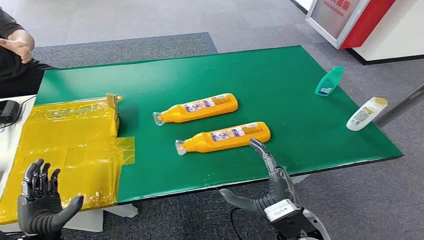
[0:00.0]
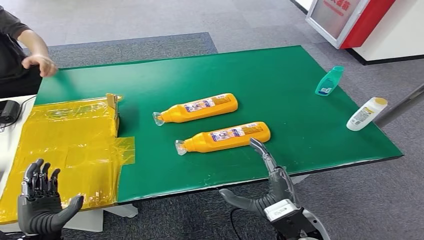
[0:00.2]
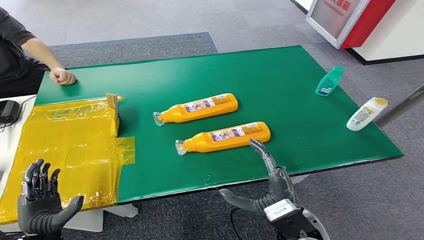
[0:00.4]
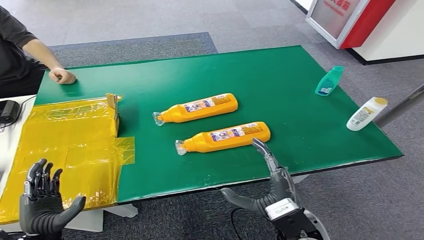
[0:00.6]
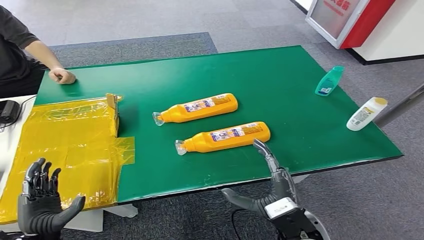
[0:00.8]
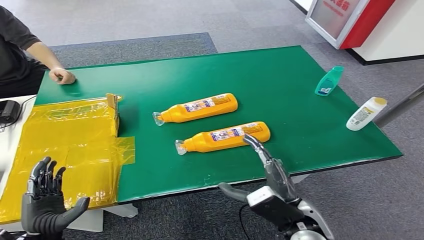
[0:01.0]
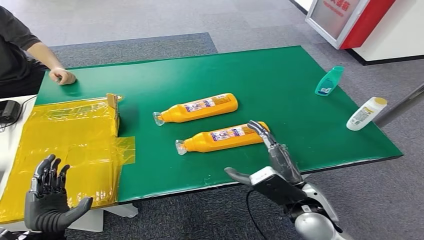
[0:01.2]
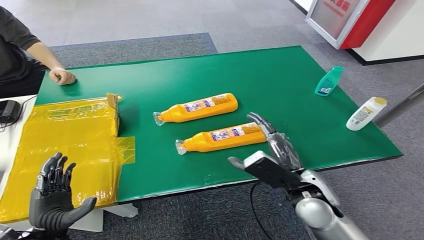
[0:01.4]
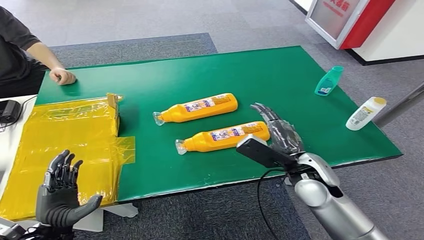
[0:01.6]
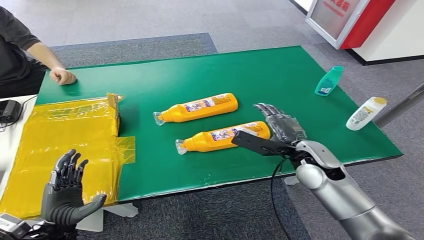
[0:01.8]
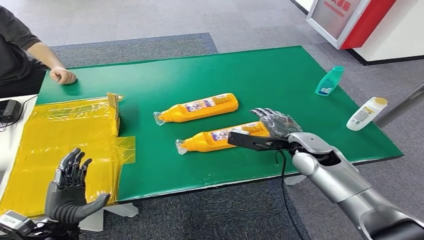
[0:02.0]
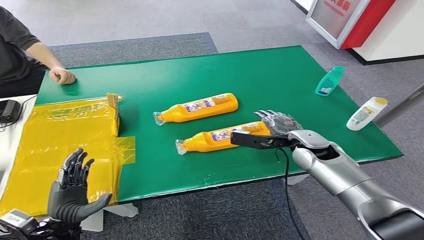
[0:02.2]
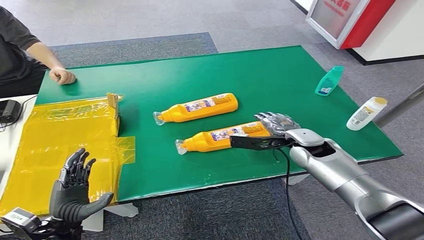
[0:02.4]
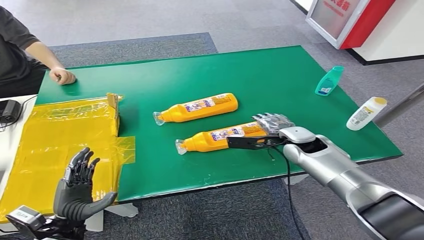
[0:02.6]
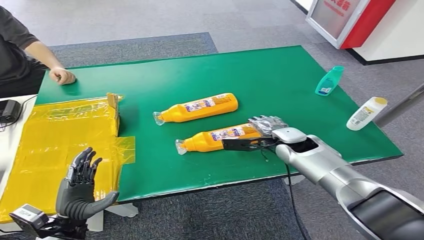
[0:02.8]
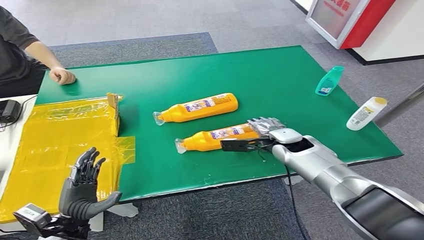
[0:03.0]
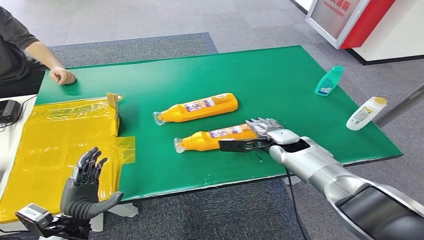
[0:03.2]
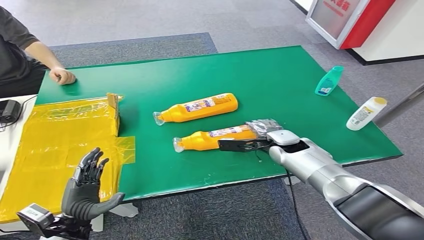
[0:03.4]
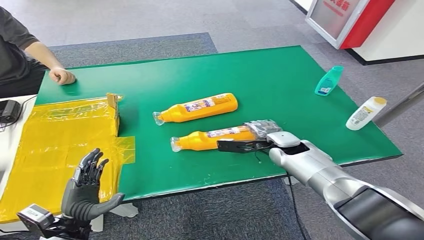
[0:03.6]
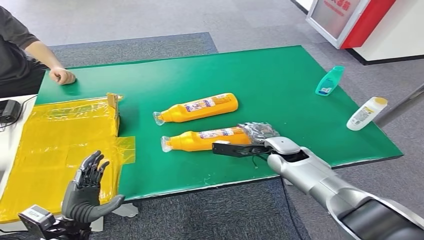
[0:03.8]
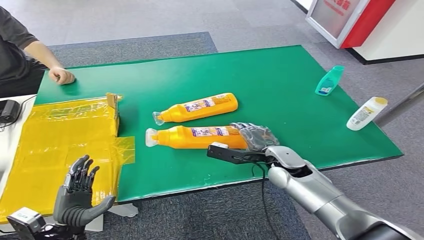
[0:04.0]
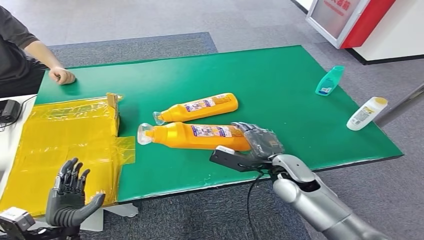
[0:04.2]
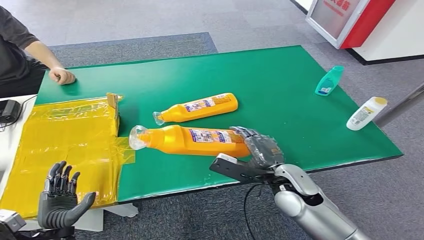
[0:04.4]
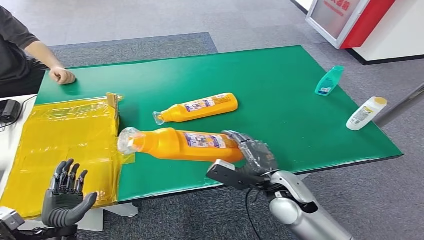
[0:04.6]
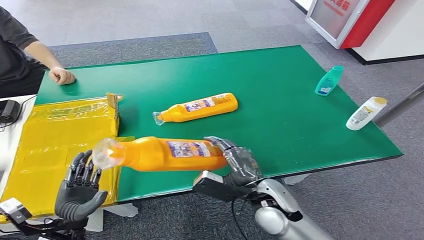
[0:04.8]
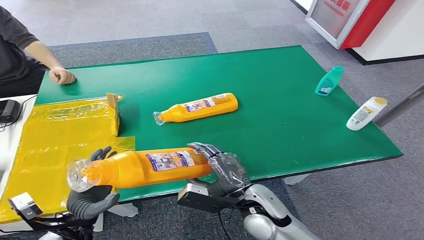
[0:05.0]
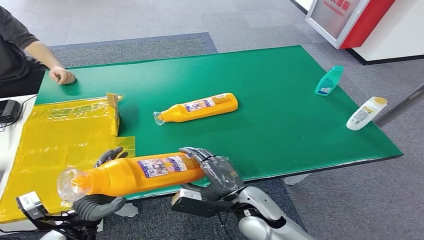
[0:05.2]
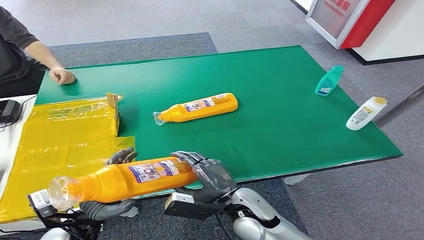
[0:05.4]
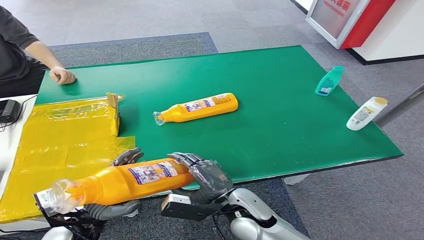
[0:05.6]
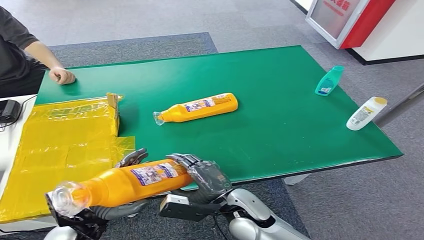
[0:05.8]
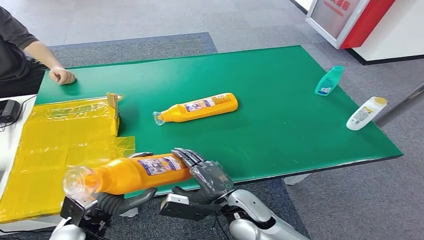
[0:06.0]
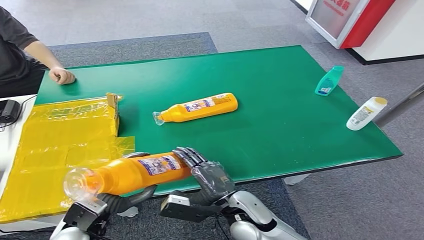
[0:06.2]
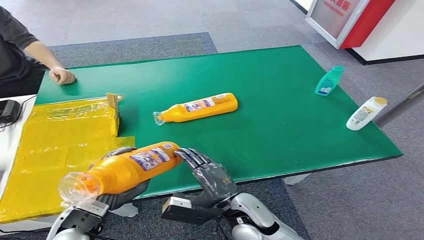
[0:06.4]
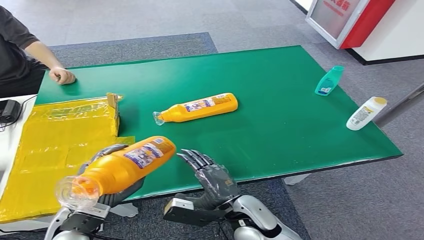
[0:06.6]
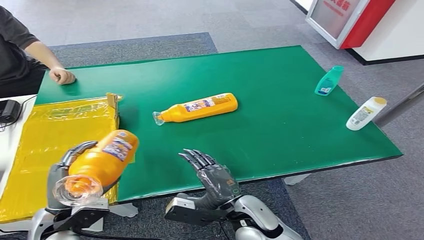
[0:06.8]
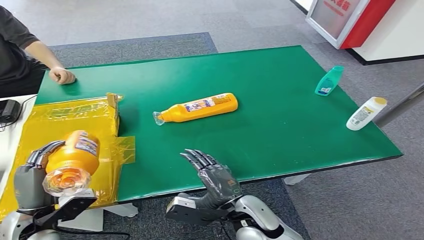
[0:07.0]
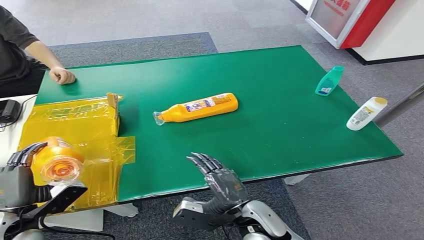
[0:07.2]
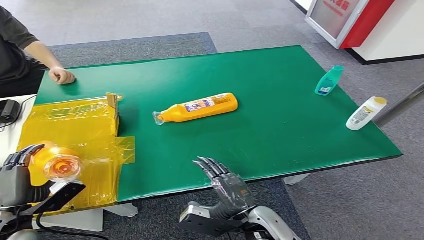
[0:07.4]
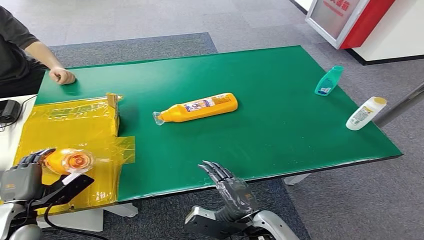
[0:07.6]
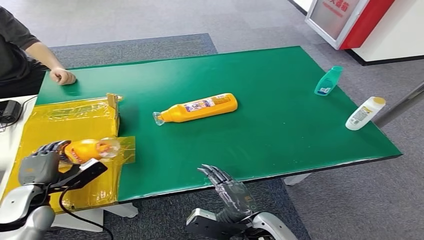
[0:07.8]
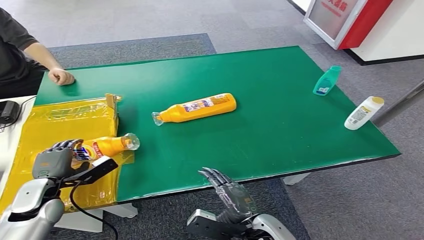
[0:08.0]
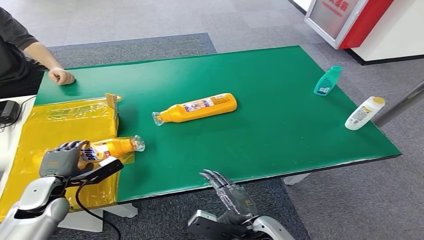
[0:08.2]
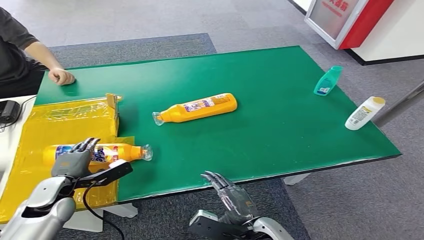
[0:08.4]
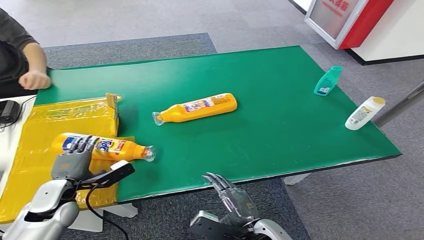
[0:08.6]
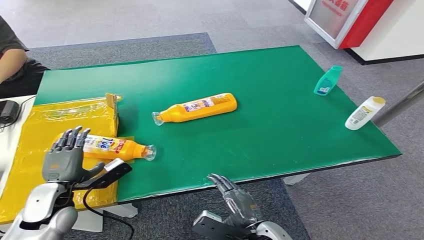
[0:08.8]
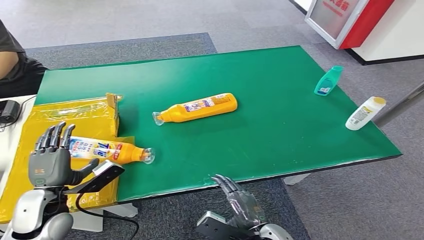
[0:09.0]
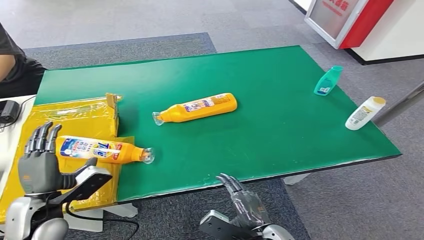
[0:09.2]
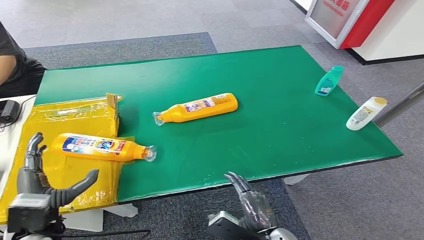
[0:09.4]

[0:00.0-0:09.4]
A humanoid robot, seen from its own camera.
Step, 0:00.0 to 0:04.4: Pick up the bottle from the table.
Step, 0:04.6 to 0:09.4: Turn the bottle to the front side.
0:03.2 to 0:04.8: The right hand moves backward and to the left, roughly 20 cm.
0:04.8 to 0:06.2: The left hand moves approximately 5 cm; the right hand heads to the left, covering approximately 5 cm.
0:06.2 to 0:07.8: The left hand shifts some 15 cm to the left and forward. The right hand heads backward, covering approximately 5 cm.
0:07.8 to 0:09.4: The left hand is displaced to the right and backward by approximately 10 cm.

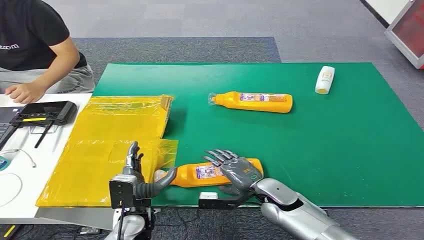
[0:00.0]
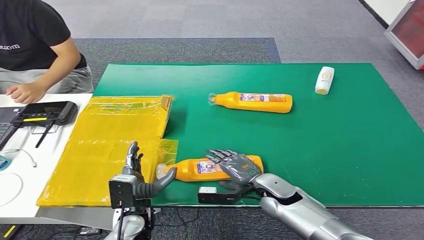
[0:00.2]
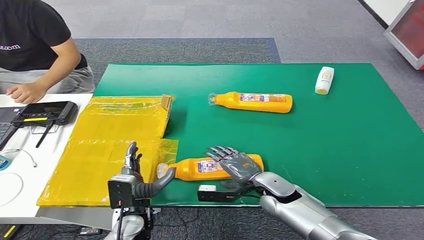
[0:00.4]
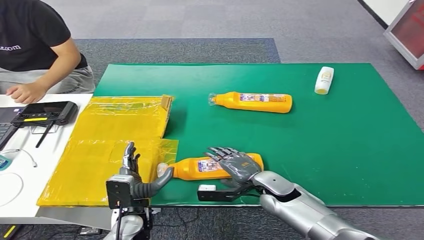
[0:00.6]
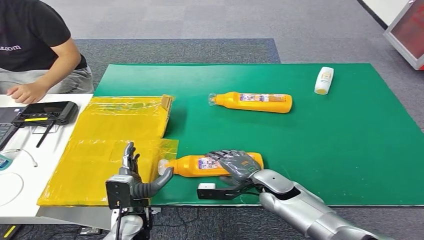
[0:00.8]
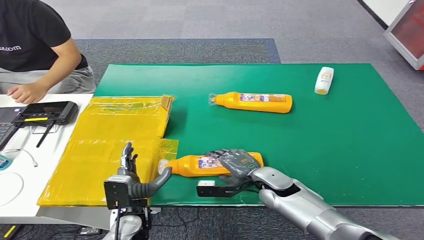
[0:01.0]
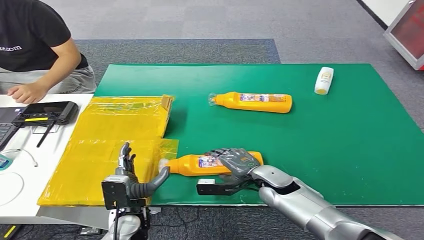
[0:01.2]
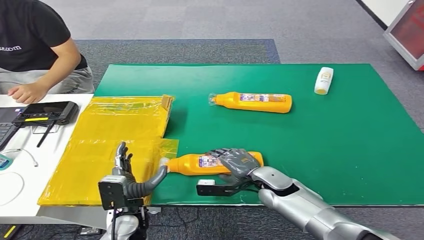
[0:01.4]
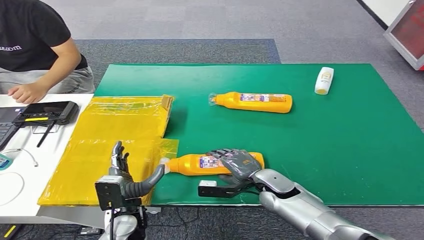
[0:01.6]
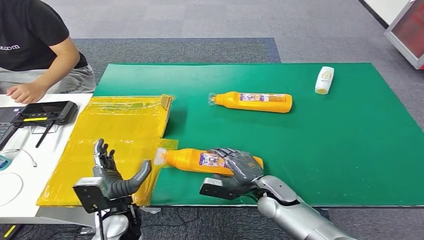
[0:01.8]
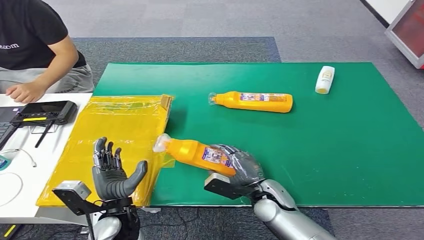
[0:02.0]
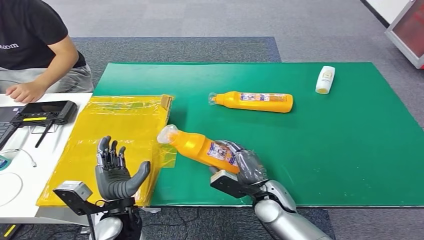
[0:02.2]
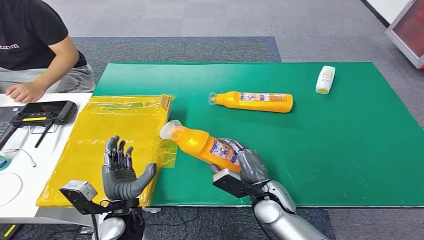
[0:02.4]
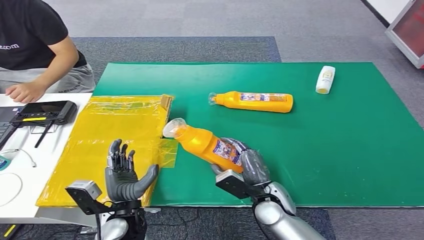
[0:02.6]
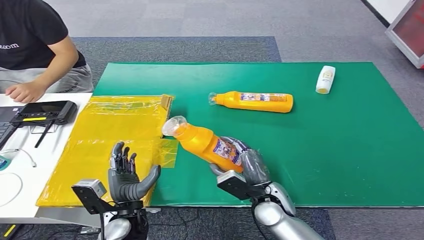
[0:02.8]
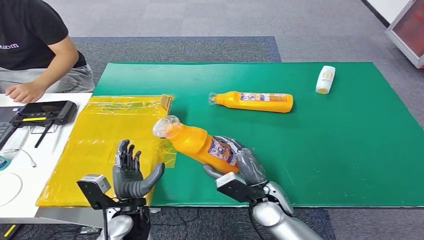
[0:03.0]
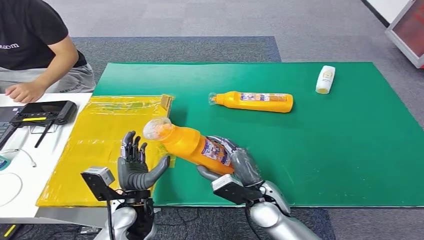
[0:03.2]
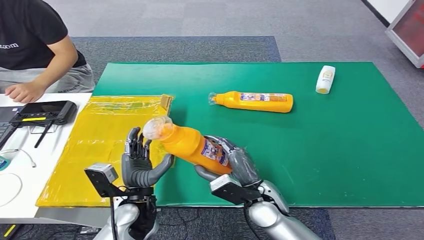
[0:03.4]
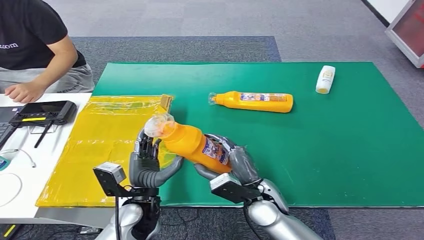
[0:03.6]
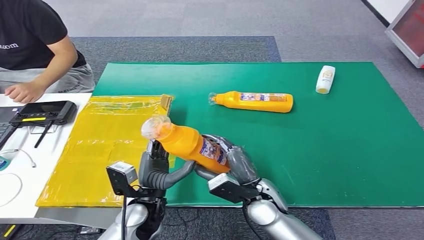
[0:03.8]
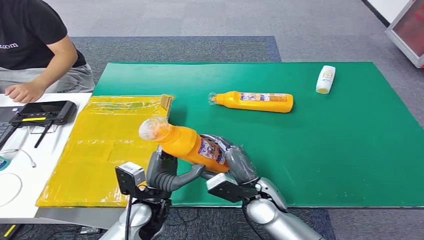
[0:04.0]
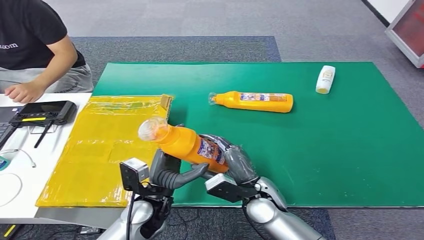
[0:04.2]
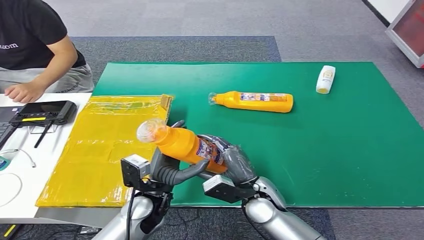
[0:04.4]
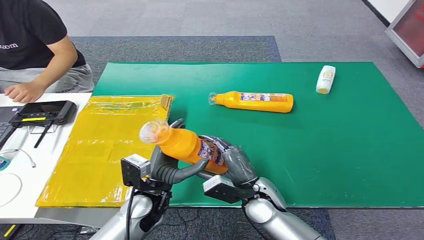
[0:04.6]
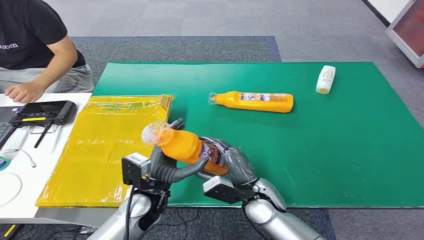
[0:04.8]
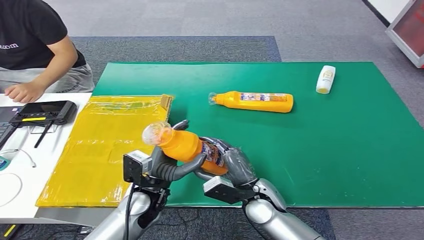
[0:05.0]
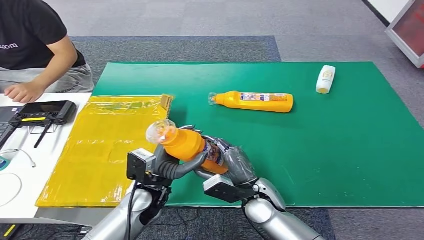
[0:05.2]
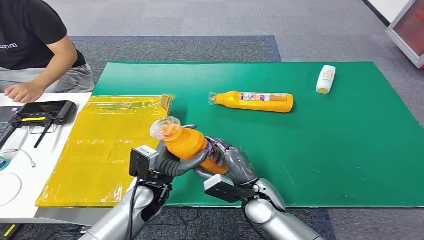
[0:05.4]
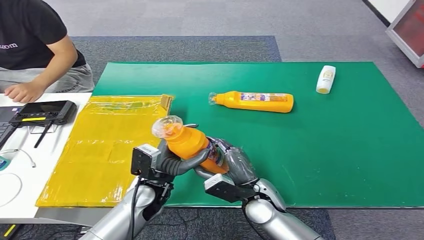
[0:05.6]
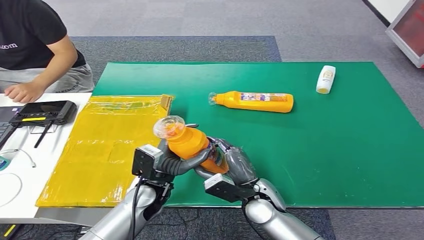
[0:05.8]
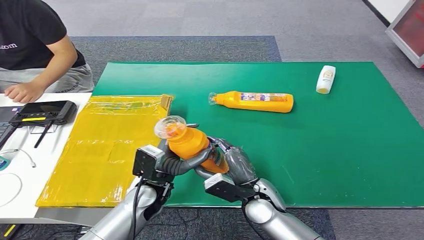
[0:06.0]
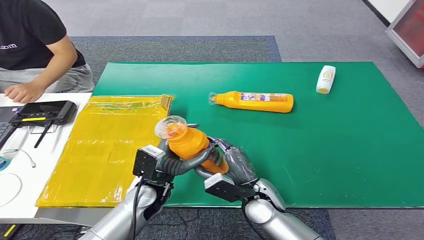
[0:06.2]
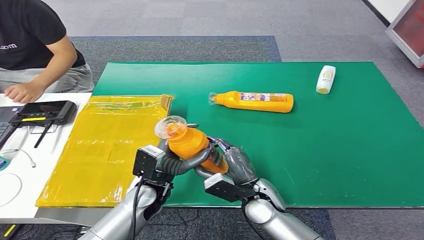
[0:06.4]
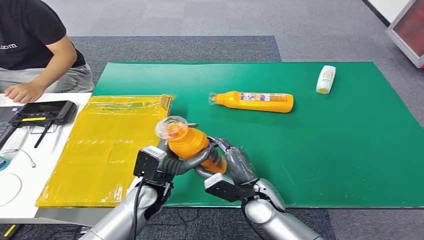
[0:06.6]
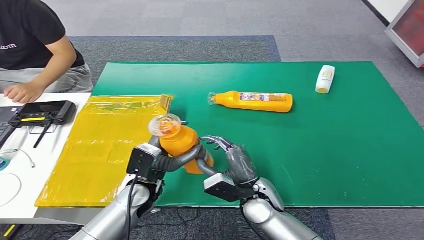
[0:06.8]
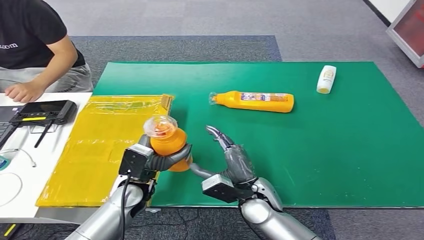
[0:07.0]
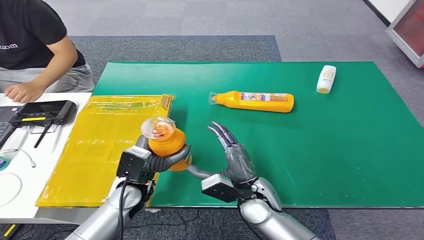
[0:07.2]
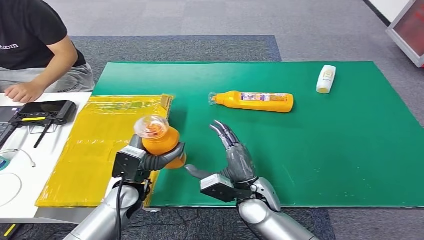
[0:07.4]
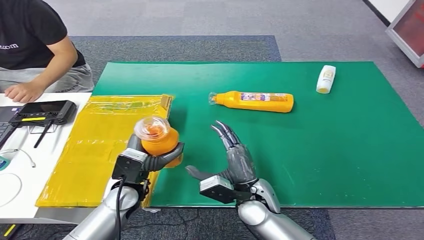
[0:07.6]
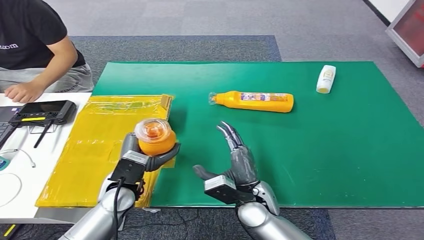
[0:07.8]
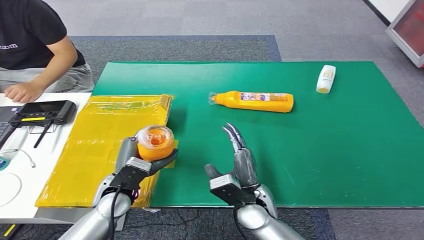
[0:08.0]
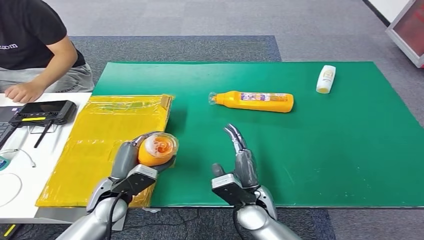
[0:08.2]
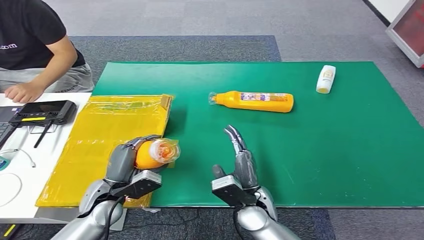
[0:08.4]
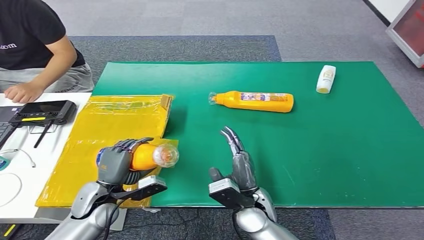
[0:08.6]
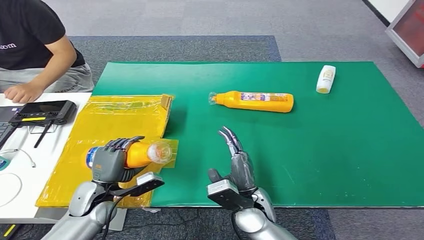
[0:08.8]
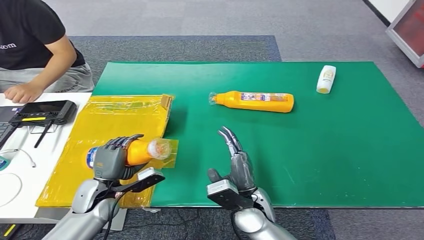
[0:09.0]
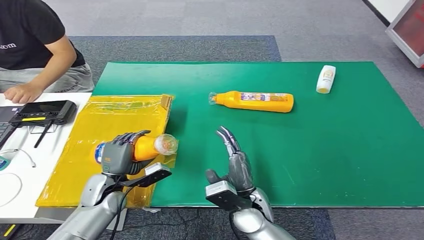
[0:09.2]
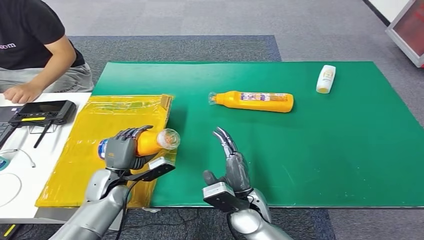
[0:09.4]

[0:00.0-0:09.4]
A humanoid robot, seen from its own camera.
Step, 0:00.0 to 0:03.0: Pick up the bottle from the table.
0:01.6 to 0:03.2: The right hand is displaced backward by about 5 cm.
0:04.8 to 0:06.2: The hands move only a little.
0:06.2 to 0:07.8: The left hand goes approximately 5 cm to the left.
0:07.8 to 0:09.4: The left hand moves to the left and downward, roughly 5 cm.
